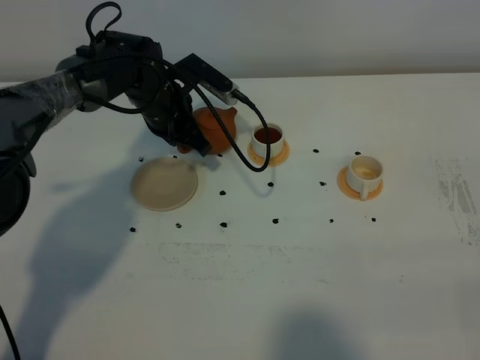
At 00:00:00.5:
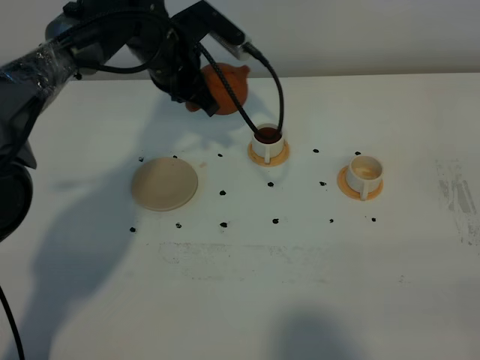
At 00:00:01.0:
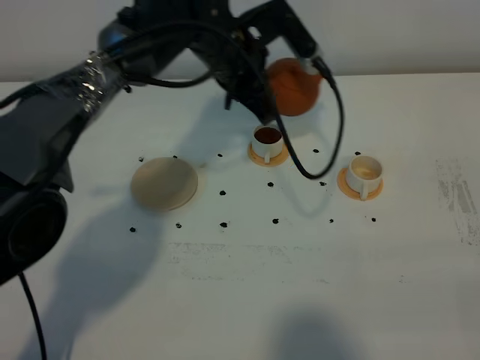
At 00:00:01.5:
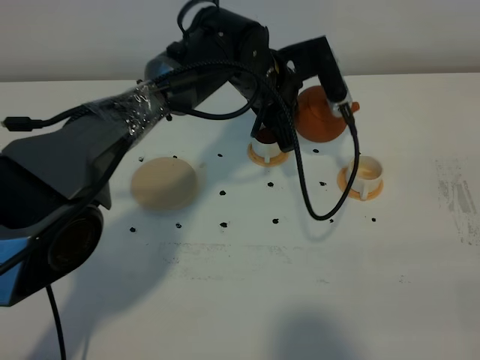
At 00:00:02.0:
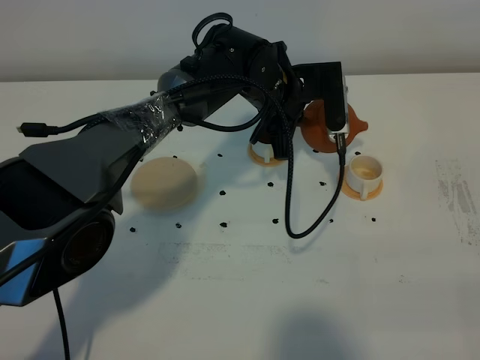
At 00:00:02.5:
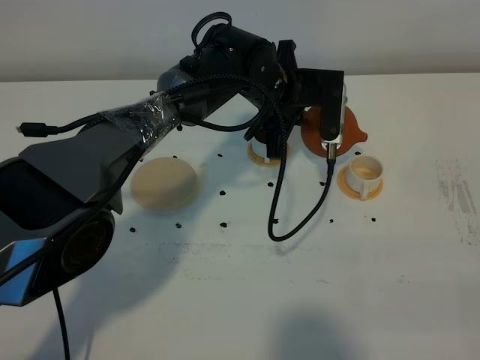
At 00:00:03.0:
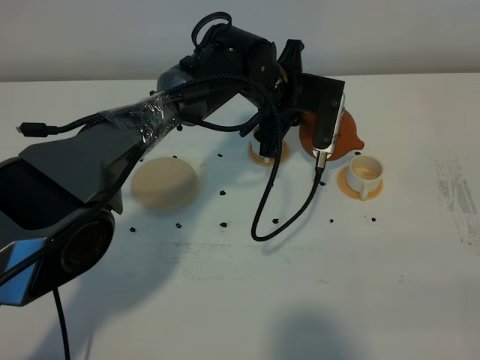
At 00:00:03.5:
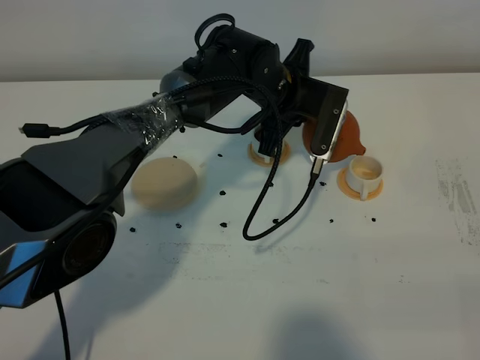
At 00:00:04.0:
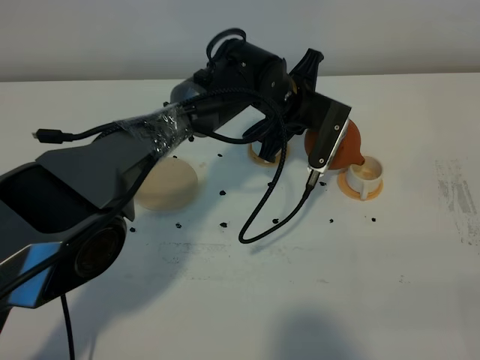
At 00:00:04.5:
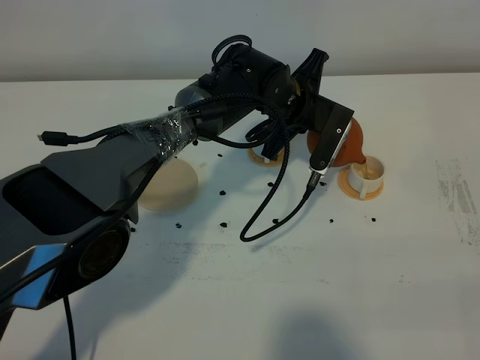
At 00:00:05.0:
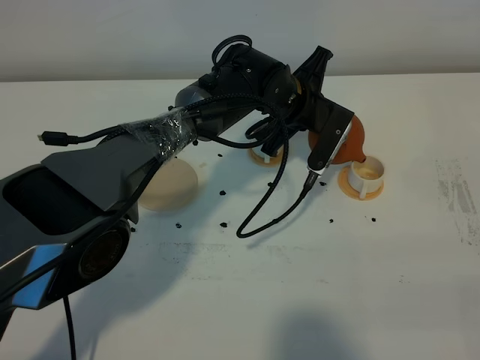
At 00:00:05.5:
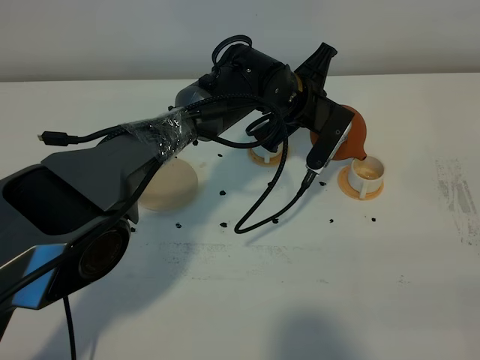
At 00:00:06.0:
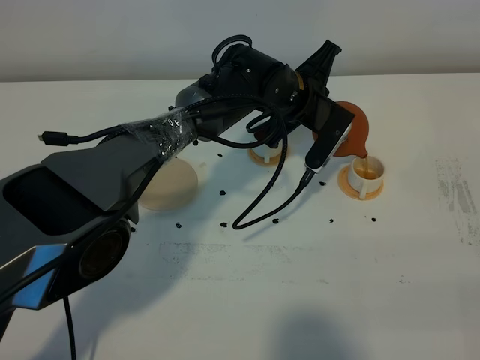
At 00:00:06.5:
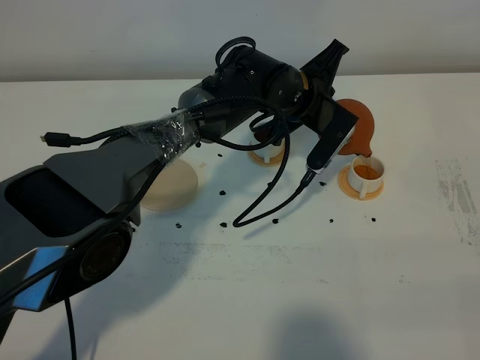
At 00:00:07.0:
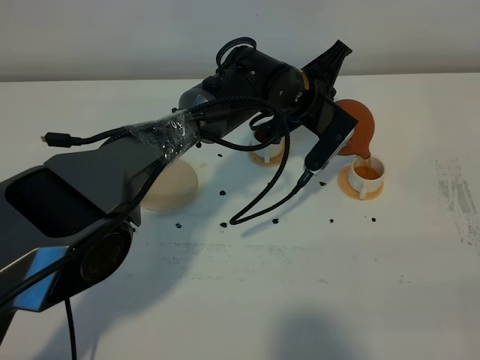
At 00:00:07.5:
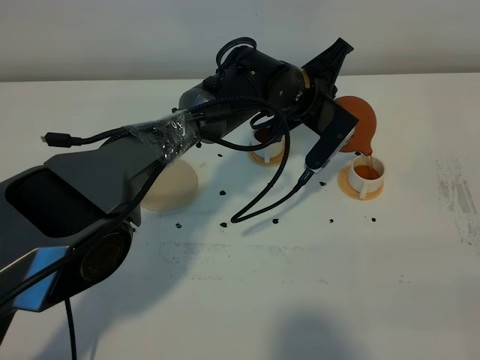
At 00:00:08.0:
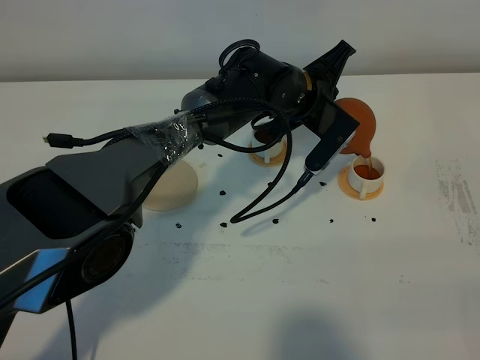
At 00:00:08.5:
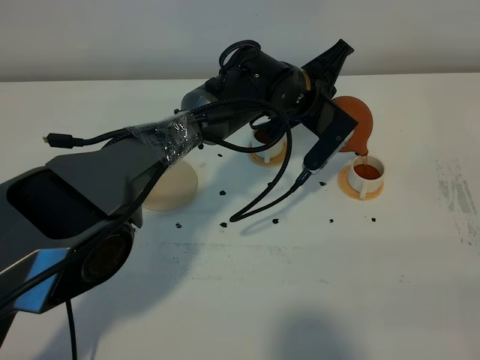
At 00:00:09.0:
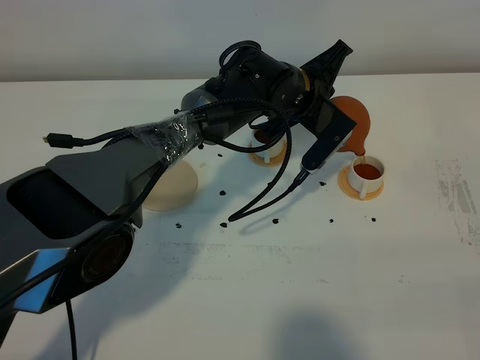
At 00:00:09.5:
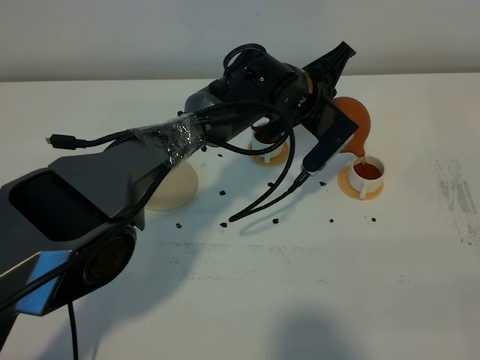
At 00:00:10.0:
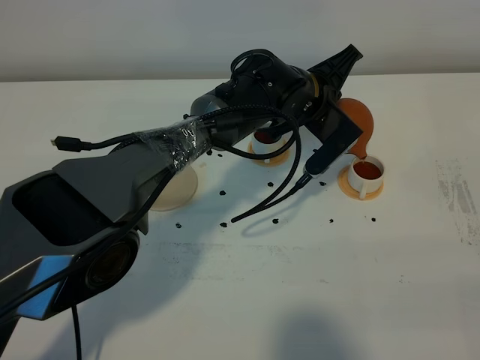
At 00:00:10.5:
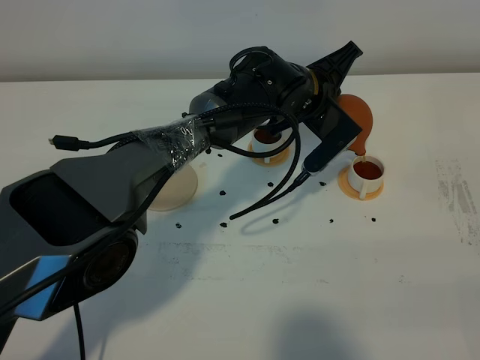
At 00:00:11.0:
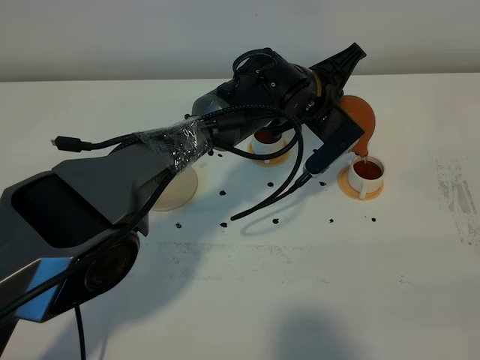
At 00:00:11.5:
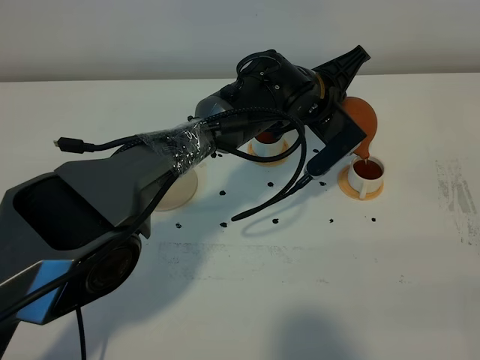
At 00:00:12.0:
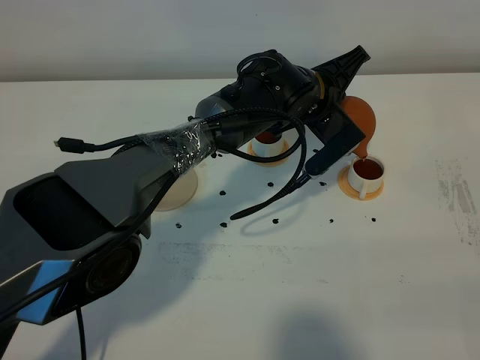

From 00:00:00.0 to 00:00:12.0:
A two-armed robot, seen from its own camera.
Task of the whole recording: grasp the brown teapot and pour the tea into the two white teacups one by one, put the brown teapot back in its original place.
From 00:00:00.0 to 00:00:02.0: The left gripper goes some 15 cm to the right.
From 00:00:04.0 to 00:00:06.0: The grippers make only small movements.
From 00:00:06.0 to 00:00:10.0: The grippers make only small movements.
From 00:00:10.0 to 00:00:12.0: Neither gripper changes place.

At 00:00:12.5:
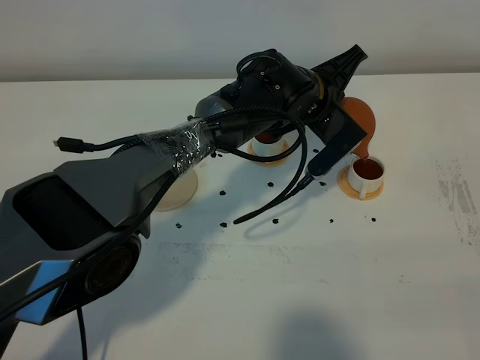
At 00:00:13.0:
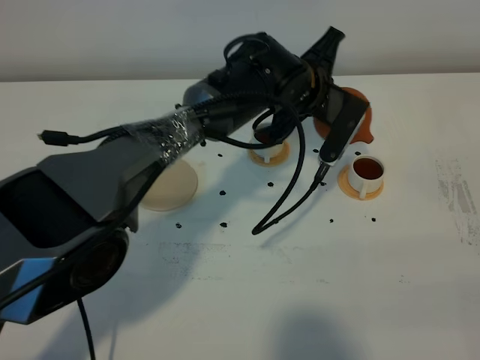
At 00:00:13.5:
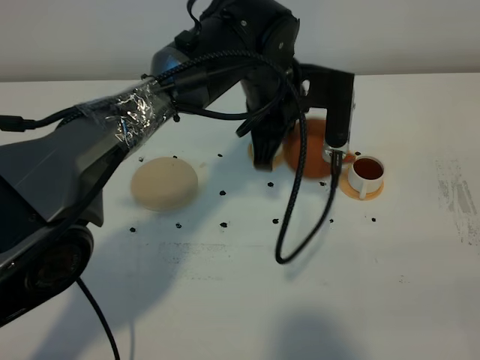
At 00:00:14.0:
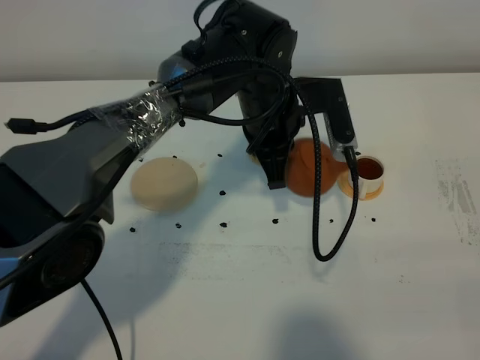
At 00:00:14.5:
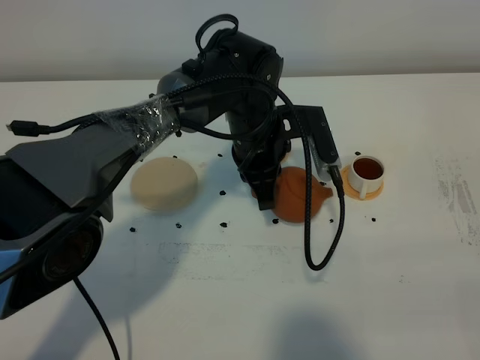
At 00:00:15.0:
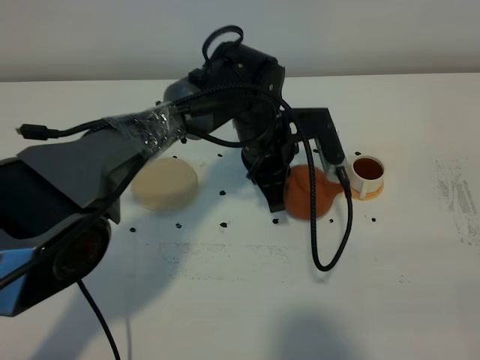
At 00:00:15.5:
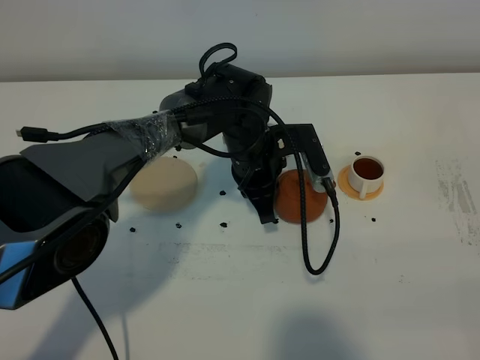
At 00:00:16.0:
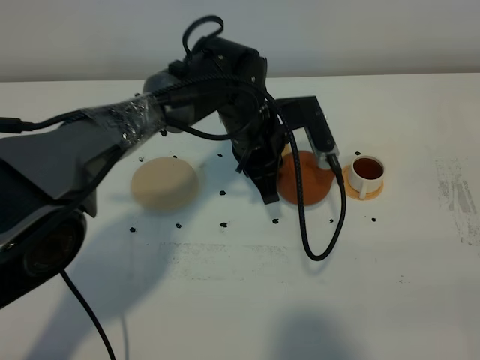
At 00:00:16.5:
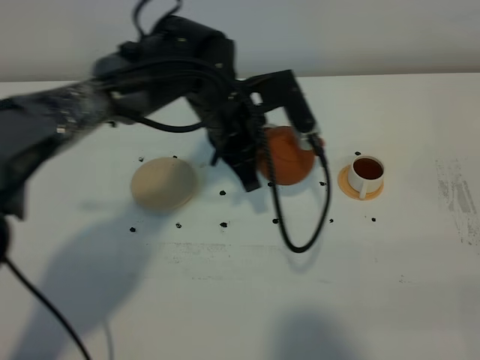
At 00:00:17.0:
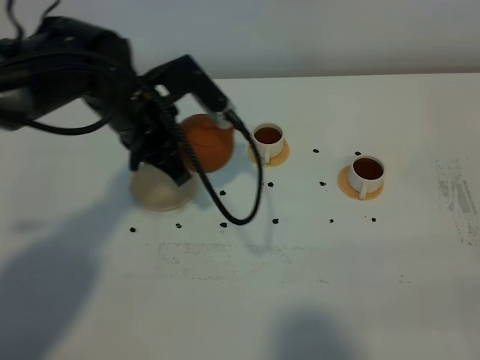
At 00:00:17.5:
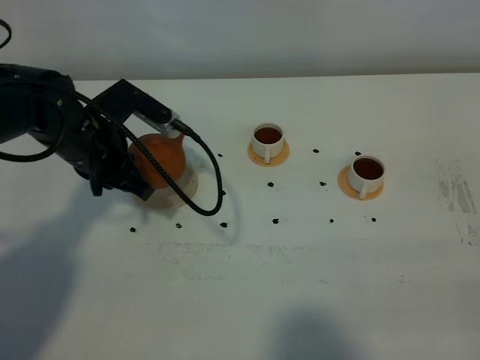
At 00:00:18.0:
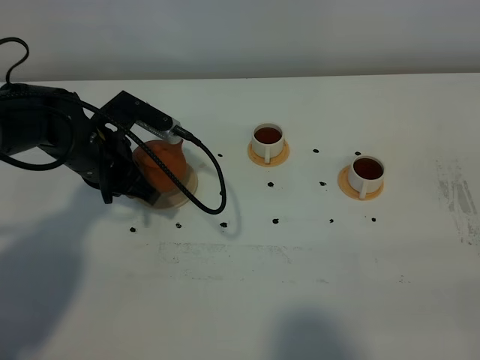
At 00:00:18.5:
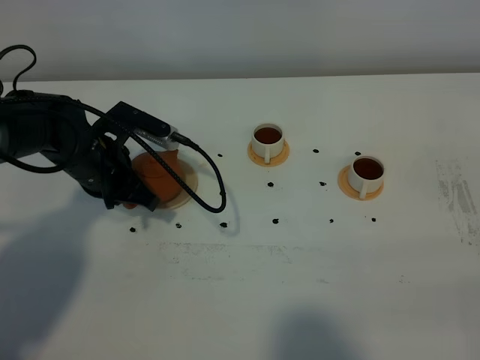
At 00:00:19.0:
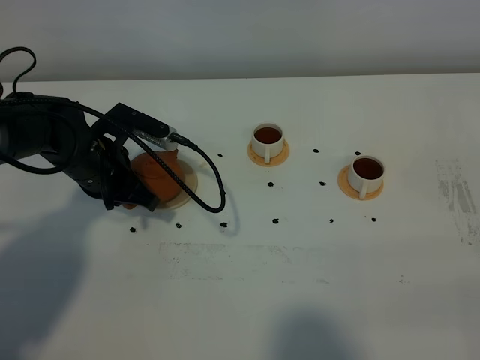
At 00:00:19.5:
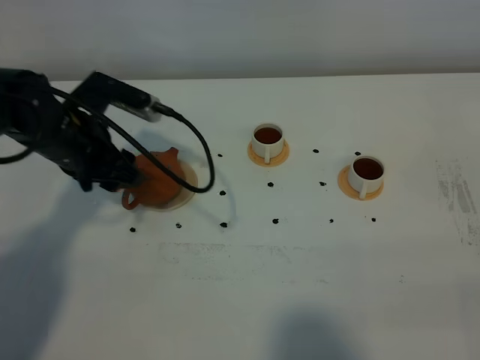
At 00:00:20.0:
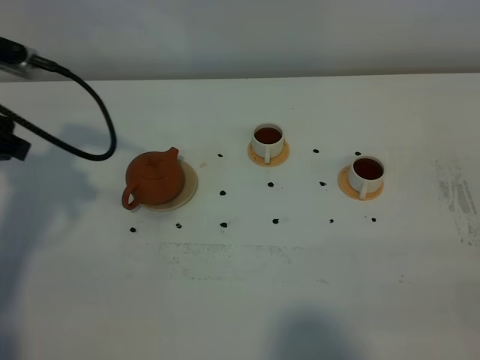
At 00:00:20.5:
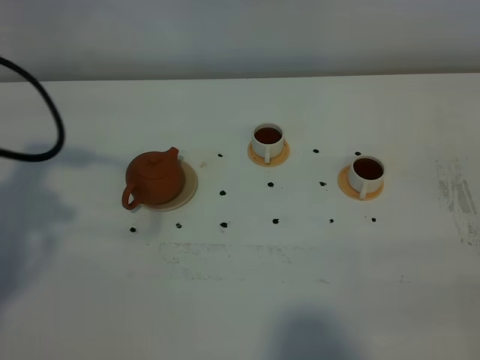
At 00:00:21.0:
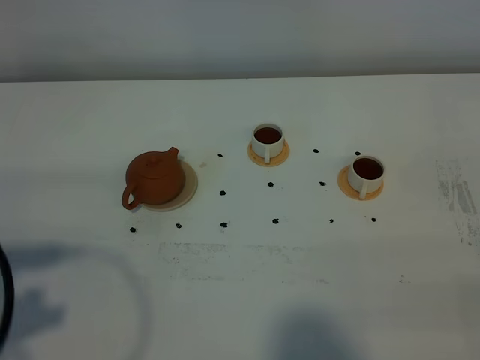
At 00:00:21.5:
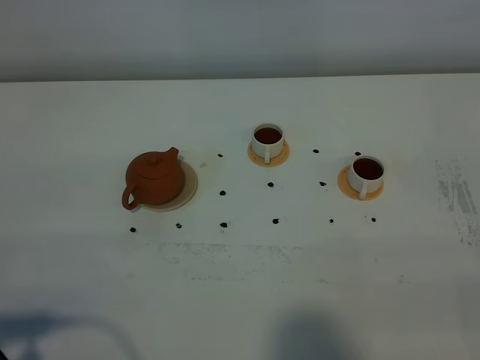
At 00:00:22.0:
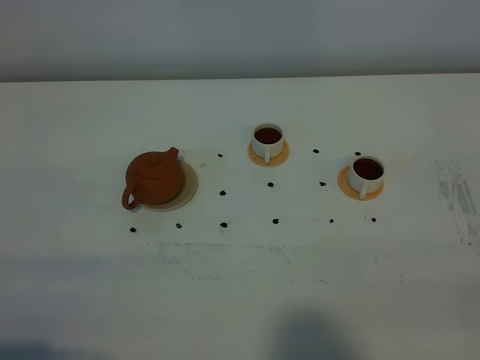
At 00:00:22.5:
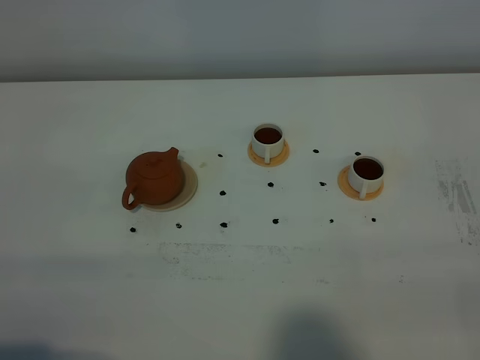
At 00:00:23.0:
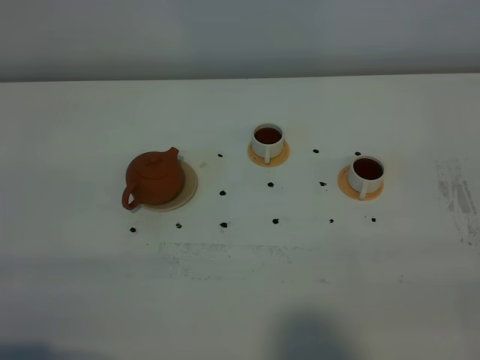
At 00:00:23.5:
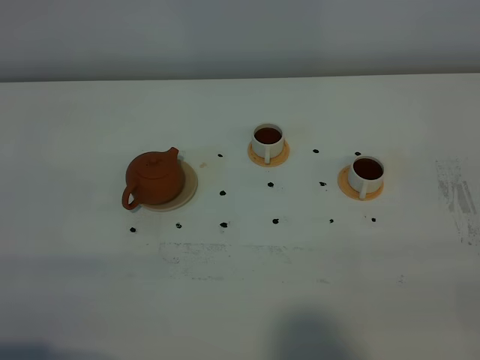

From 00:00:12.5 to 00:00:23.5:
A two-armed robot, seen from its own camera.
Task of the whole recording: grasp the brown teapot and pour the tea into the two white teacups one by one, put the brown teapot back in its original place.
From 00:00:12.5 to 00:00:14.5: The left gripper moves to the left, roughly 5 cm.
From 00:00:14.5 to 00:00:16.0: The grippers stay close to where they were, moving slightly.
From 00:00:16.0 to 00:00:18.0: The left gripper moves to the left, approximately 20 cm.
From 00:00:18.0 to 00:00:20.0: The left gripper goes approximately 20 cm upward, to the left and backward, and opens its fingers.
From 00:00:20.0 to 00:00:21.5: The left gripper heads backward, covering roughly 30 cm.

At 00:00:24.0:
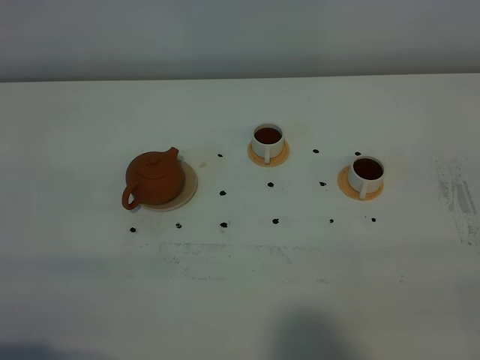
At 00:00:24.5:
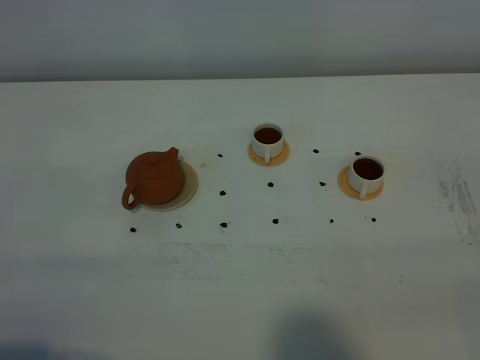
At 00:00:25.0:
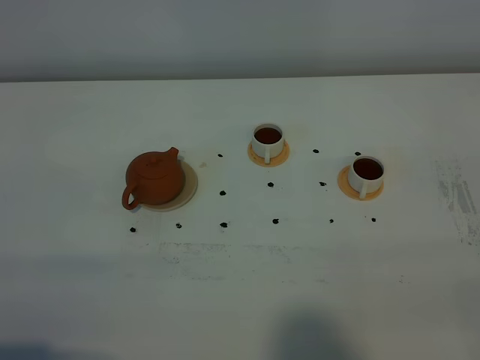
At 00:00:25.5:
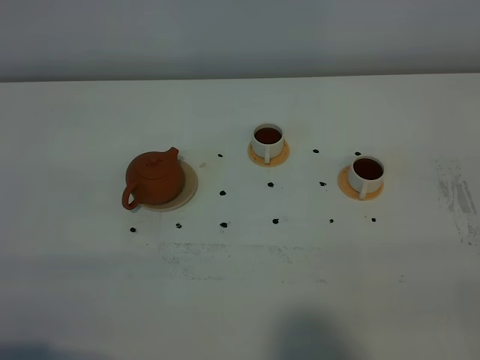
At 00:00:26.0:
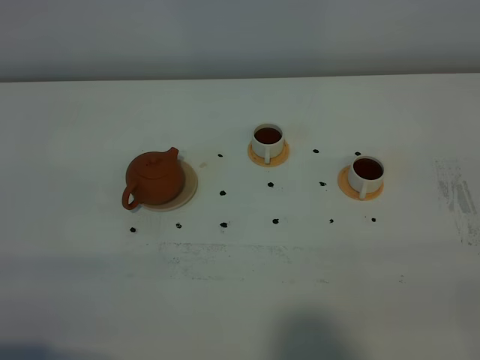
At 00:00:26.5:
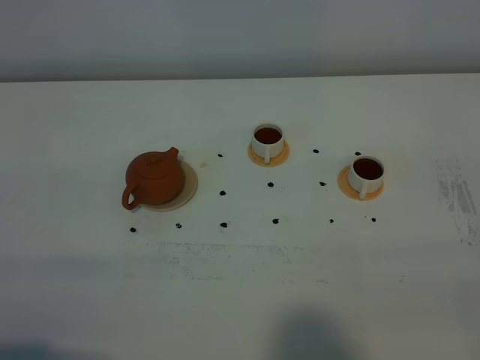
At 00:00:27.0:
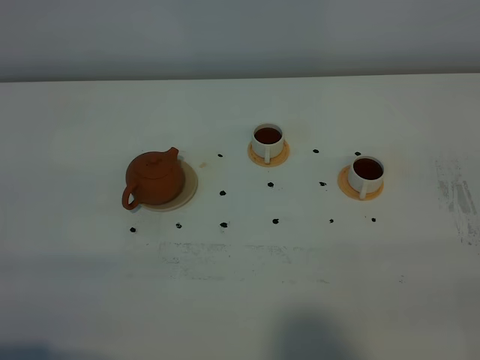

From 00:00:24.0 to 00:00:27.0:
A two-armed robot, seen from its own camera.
Task of the whole recording: grasp the brown teapot and pour the tea into the two white teacups one by one, put the brown teapot back in its original place.
From 00:00:24.0 to 00:00:27.0: Both grippers stay about where they are.
